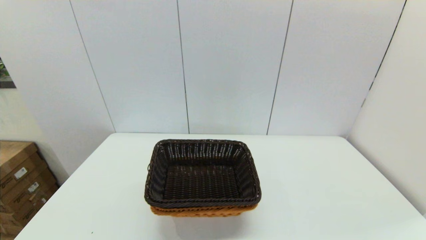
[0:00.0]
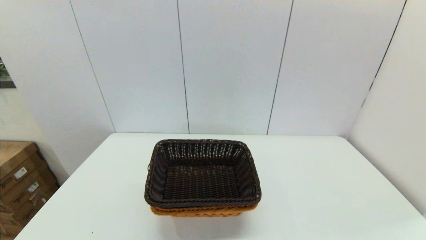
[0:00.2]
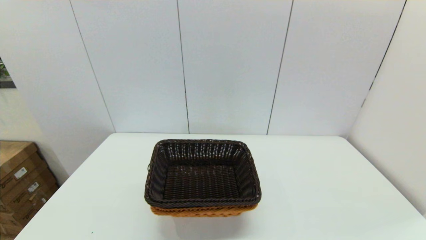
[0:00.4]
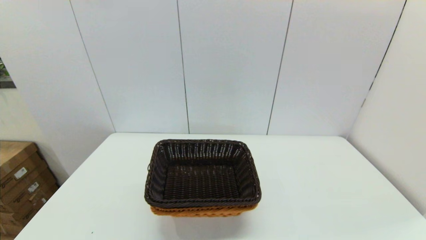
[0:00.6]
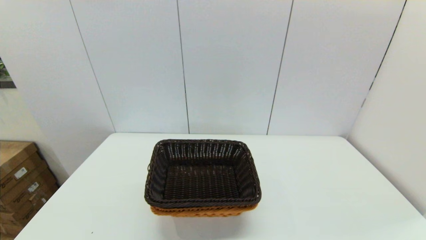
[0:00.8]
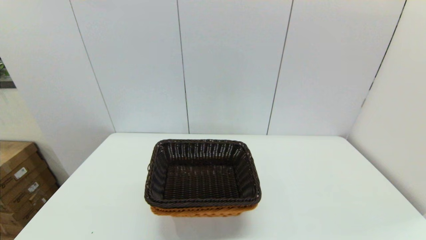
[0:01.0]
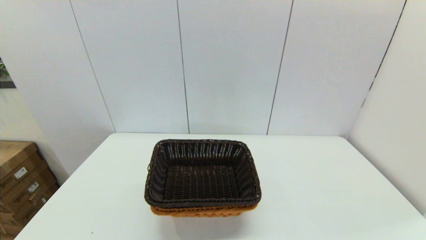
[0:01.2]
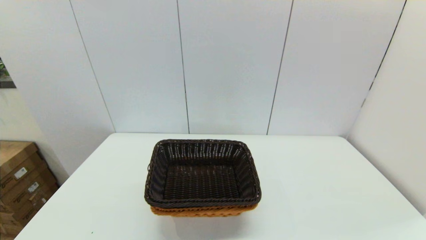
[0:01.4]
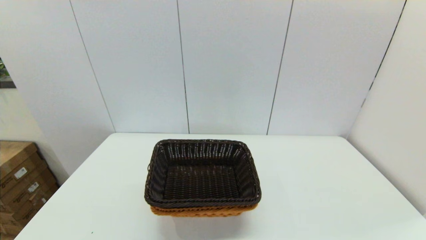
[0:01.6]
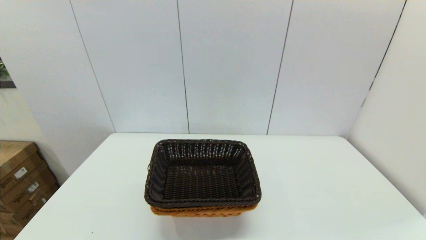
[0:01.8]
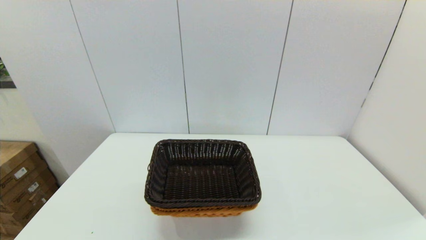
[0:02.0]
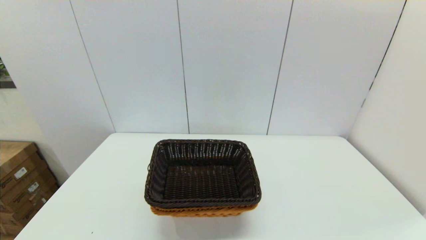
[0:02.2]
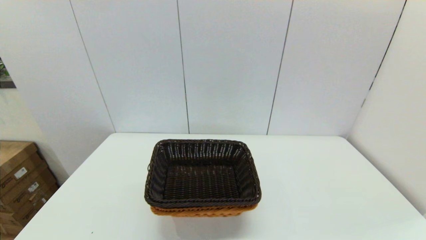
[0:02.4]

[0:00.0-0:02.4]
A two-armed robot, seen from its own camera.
Task of the whole recording: stack a basket on top of another basket.
0:00.0 to 0:02.4: Neither gripper changes place.

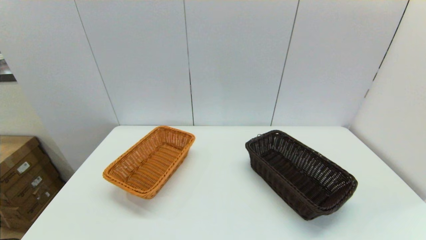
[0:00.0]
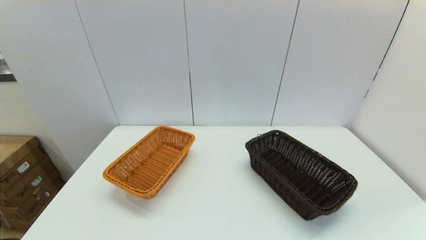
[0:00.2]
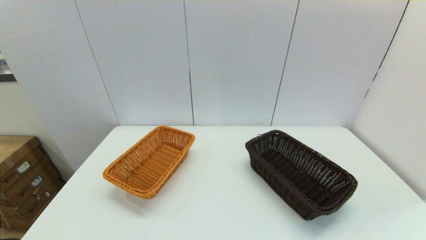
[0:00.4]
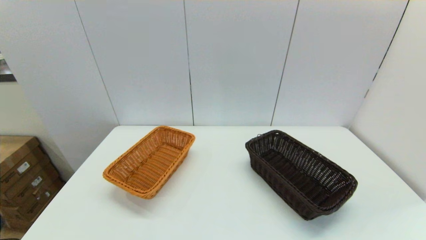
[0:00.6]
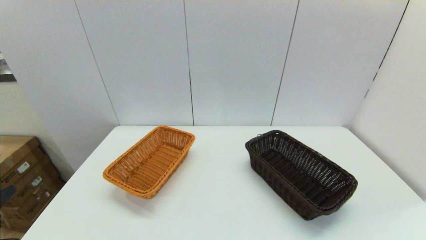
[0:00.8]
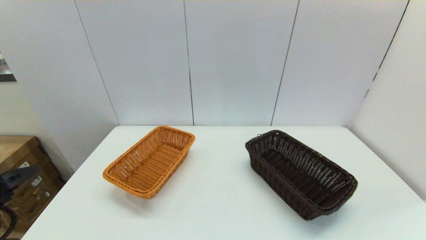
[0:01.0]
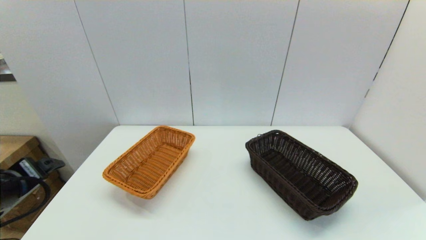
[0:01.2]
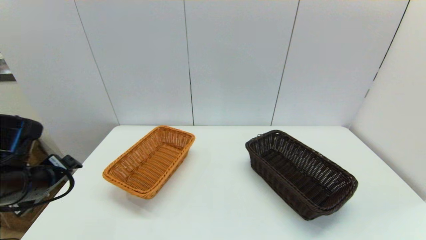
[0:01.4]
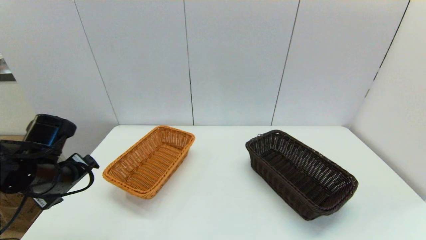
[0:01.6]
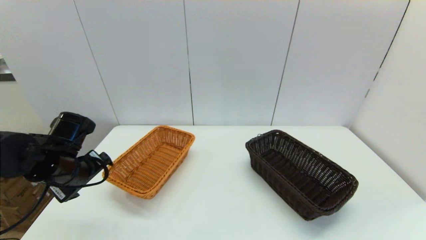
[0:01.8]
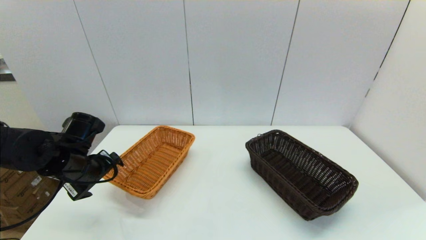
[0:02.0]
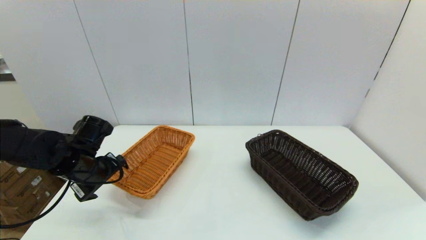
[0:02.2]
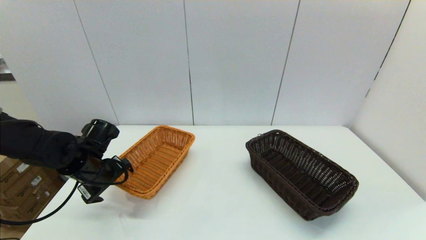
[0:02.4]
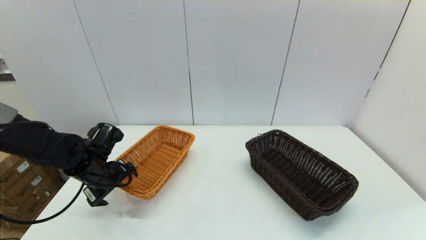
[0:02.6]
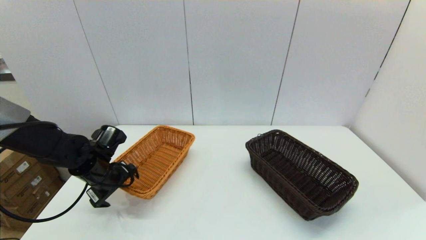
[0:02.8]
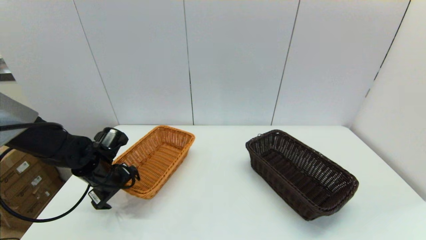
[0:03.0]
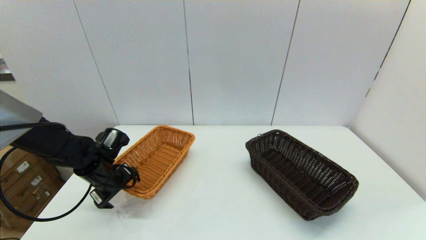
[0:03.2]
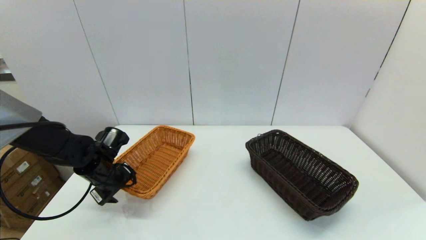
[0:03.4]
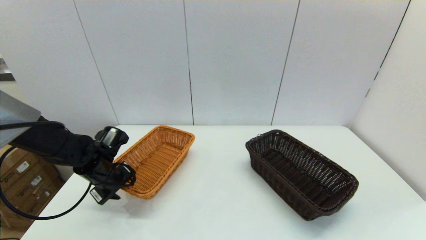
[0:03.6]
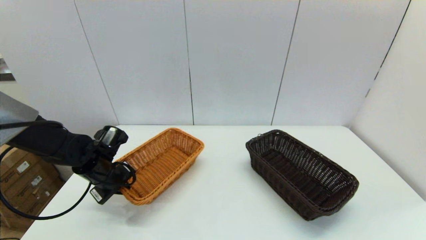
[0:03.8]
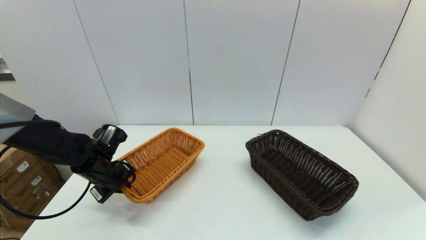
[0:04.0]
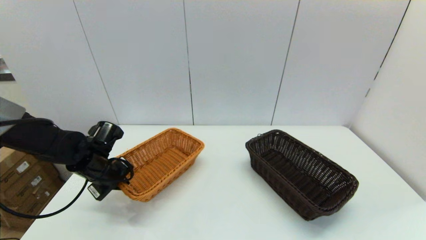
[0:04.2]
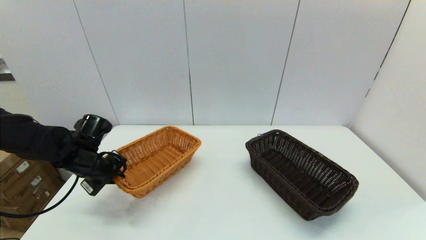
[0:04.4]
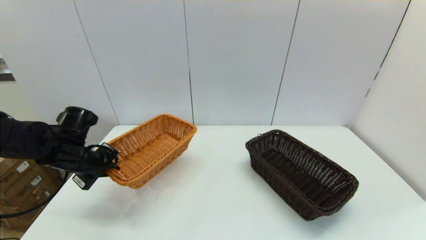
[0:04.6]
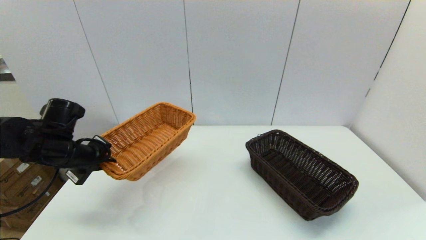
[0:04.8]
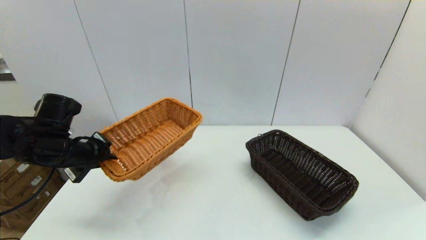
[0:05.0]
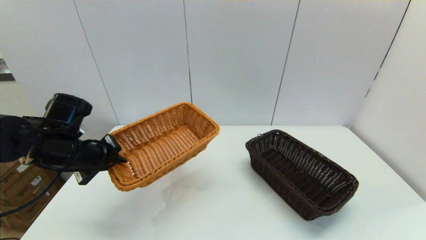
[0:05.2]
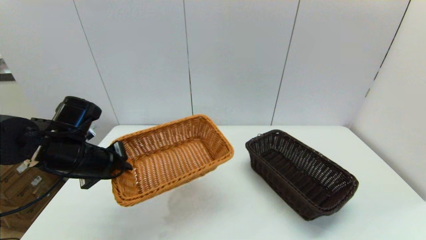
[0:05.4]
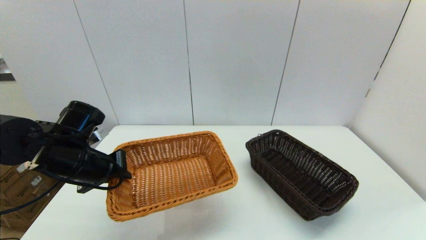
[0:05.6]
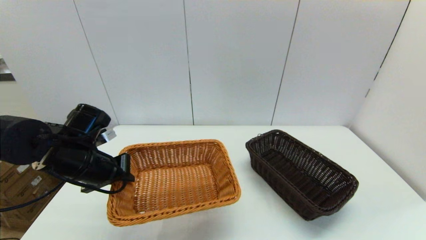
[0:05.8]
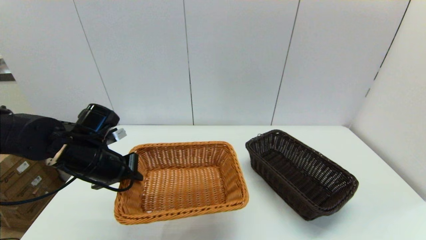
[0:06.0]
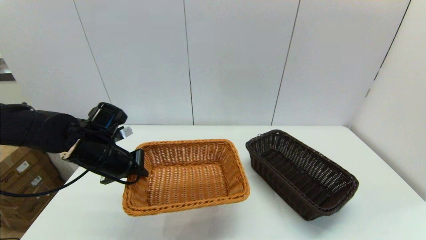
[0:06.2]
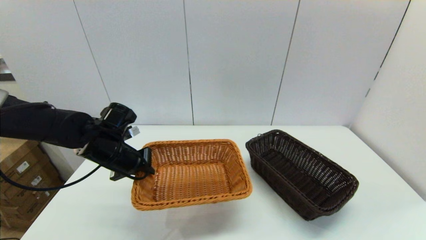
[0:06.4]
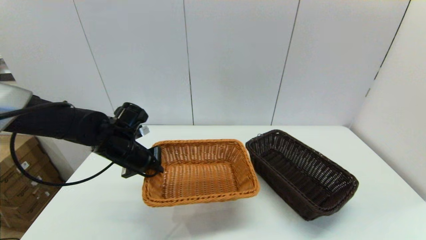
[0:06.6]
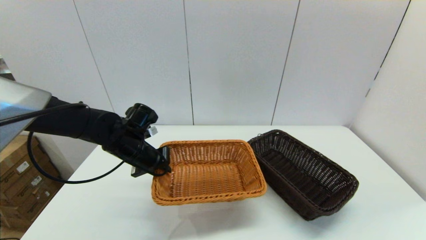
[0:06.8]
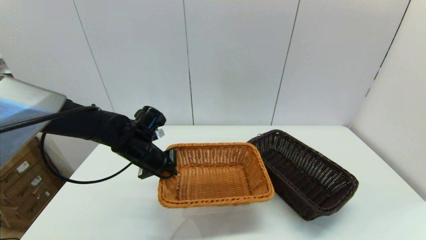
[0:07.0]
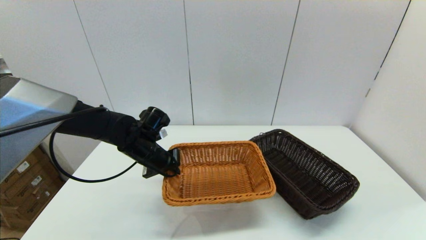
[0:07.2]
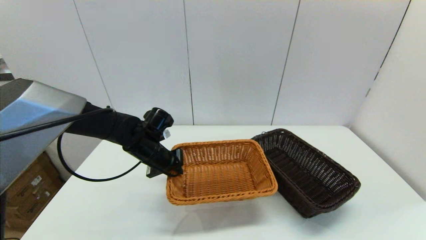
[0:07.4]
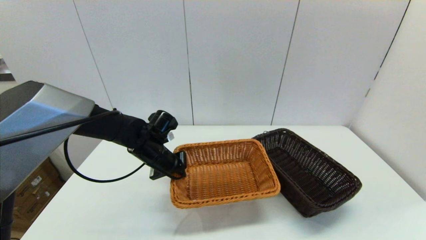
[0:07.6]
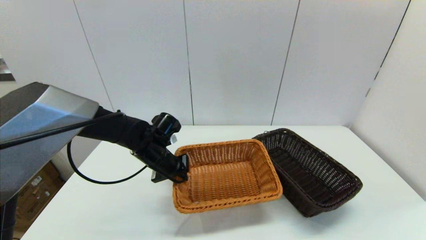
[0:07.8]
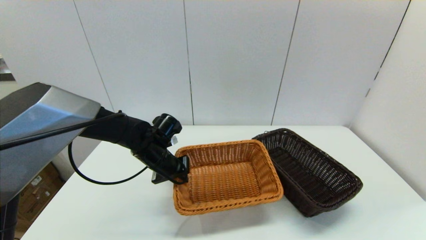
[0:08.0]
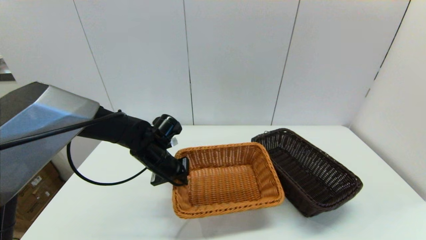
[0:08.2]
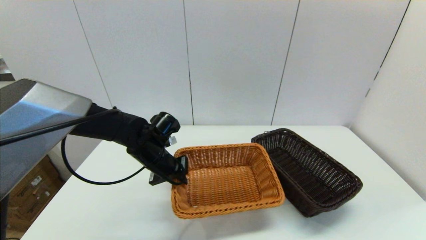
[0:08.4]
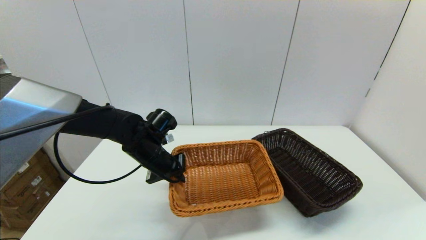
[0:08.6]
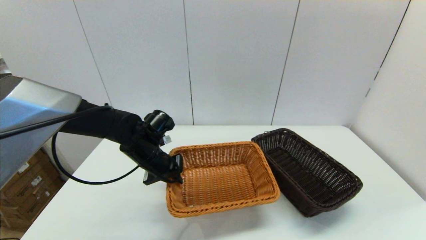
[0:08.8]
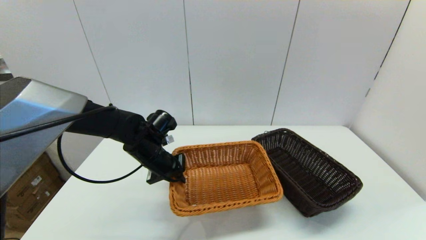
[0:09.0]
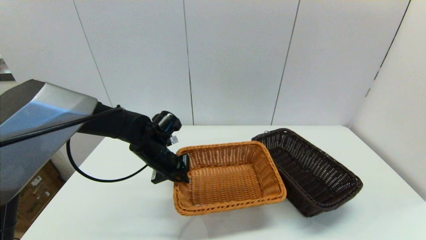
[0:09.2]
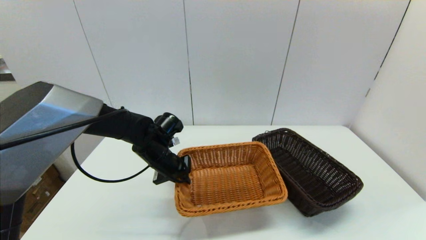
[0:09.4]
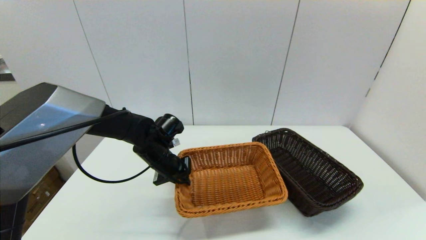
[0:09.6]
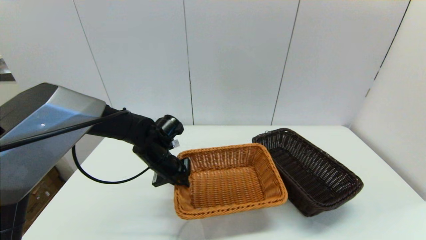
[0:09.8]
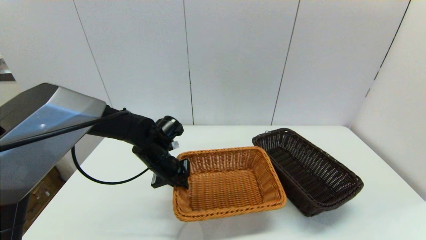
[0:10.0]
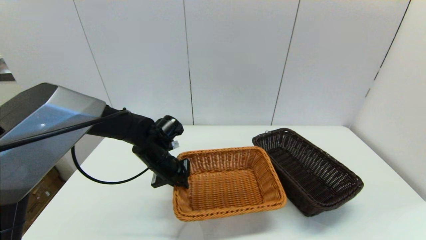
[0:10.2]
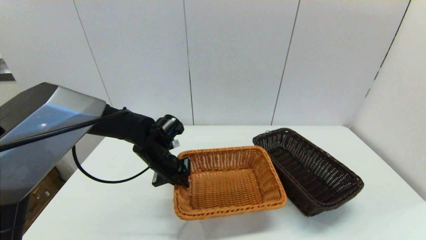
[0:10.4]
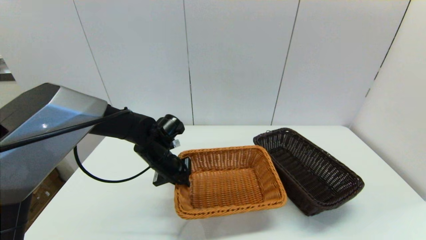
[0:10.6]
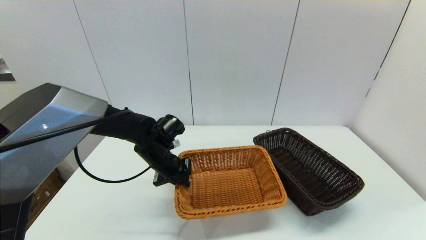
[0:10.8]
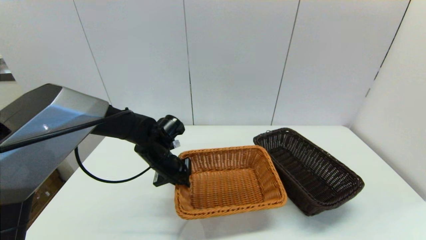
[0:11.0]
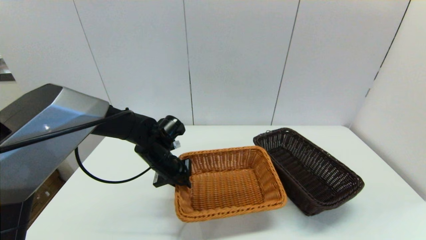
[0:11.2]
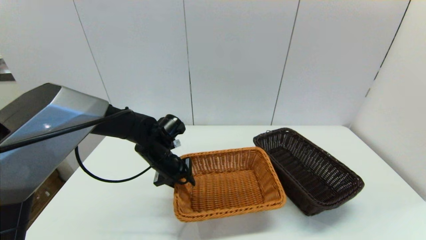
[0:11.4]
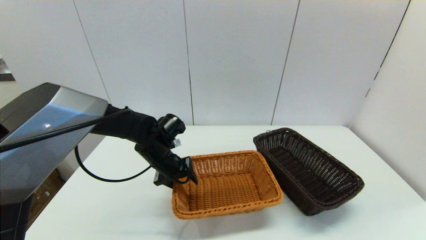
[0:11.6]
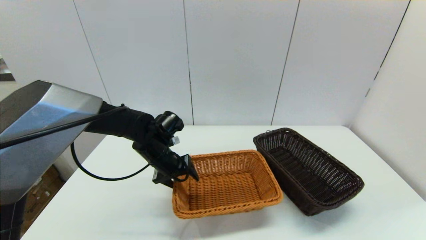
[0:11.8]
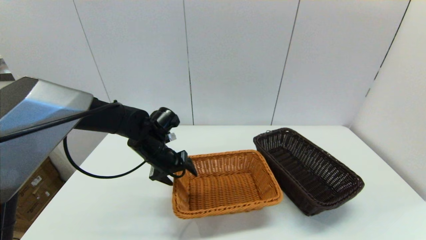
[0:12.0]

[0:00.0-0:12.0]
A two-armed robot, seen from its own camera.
Task of the whole recording: stack a basket on top of another basket.
Step, 0:00.0 to 0:04.2: Grasp the light basket with the left gripper.
0:00.0 to 0:01.6: The left gripper heads forward, covering some 25 cm.
0:01.6 to 0:03.0: The left gripper heads downward and forward, covering roughly 10 cm.
0:03.0 to 0:04.4: The left gripper closes up.
0:04.4 to 0:06.0: The left gripper shifts by some 5 cm.
0:06.0 to 0:07.6: The left gripper is displaced to the right, forward and downward by roughly 15 cm.
0:07.6 to 0:10.4: The grippers make only small movements.
0:10.4 to 0:12.0: The left gripper opens up.

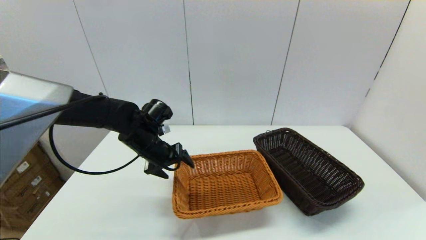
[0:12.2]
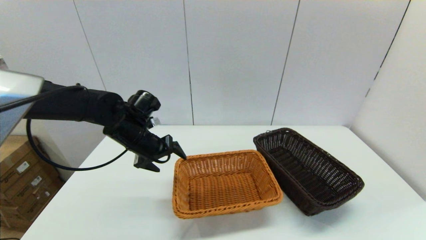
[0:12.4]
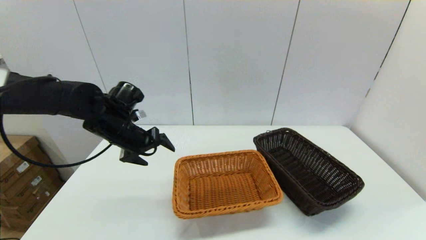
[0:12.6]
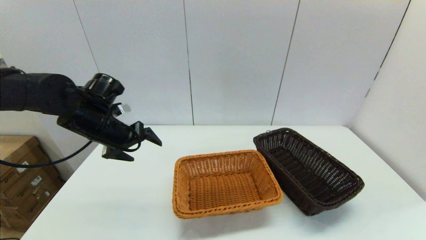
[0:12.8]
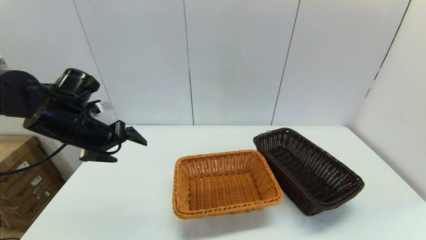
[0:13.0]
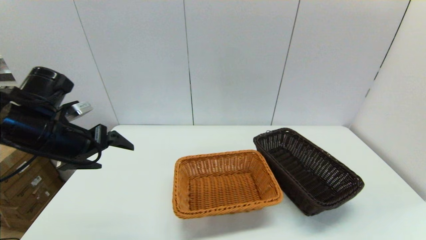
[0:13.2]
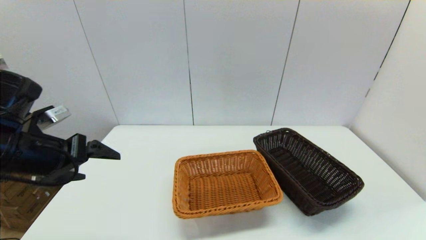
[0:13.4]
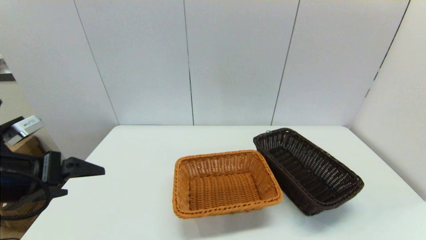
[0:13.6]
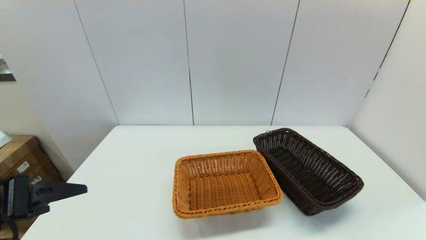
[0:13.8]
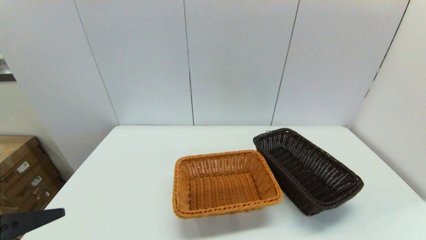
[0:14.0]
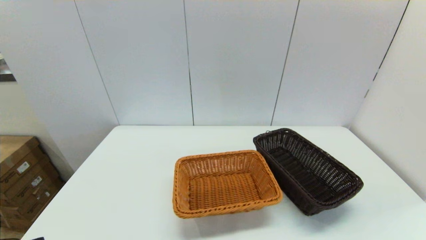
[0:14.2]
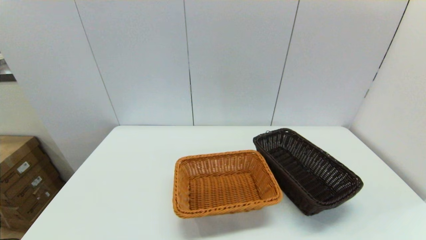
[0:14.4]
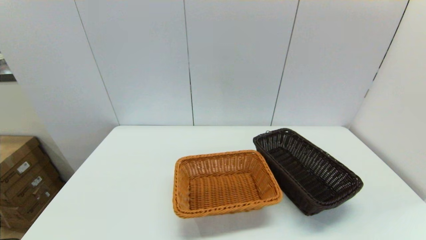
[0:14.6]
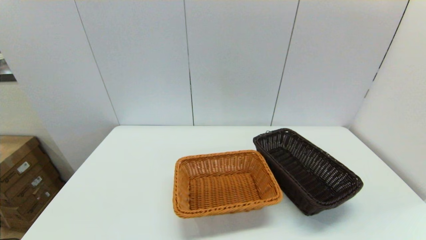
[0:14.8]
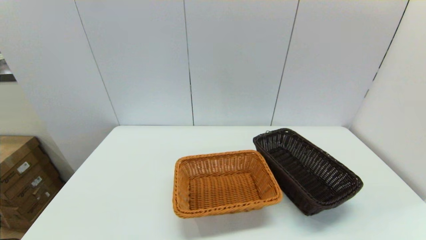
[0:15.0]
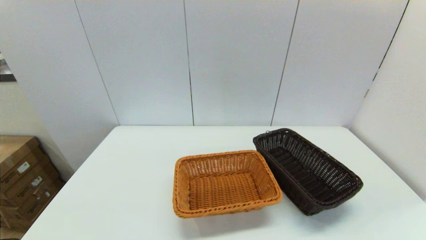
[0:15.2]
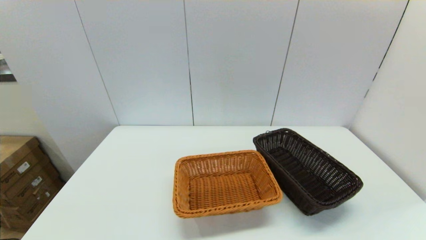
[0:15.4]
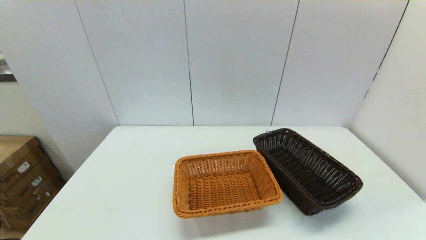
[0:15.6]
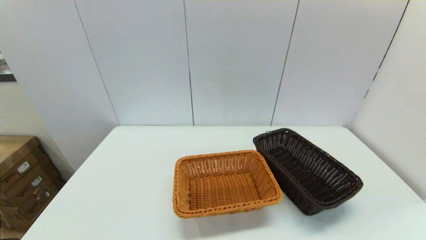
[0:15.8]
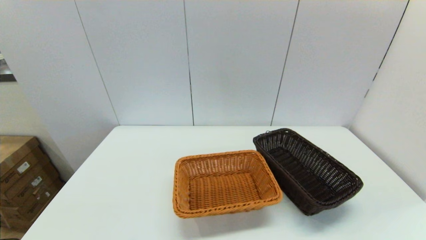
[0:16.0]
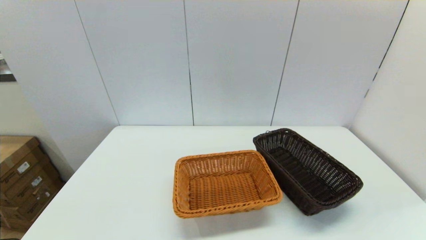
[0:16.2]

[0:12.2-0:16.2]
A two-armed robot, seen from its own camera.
Task of the whole recording: stack a basket on top of another basket.
0:12.2 to 0:13.6: The left gripper shifts some 25 cm backward, to the left and upward.
0:13.6 to 0:14.8: The left gripper goes approximately 20 cm backward.
